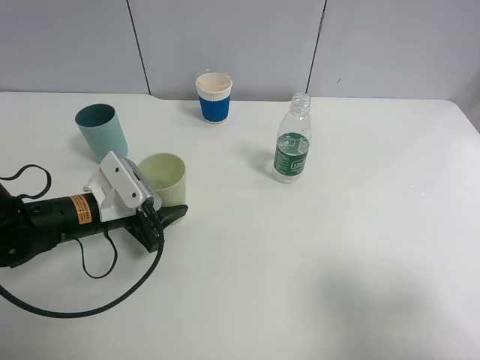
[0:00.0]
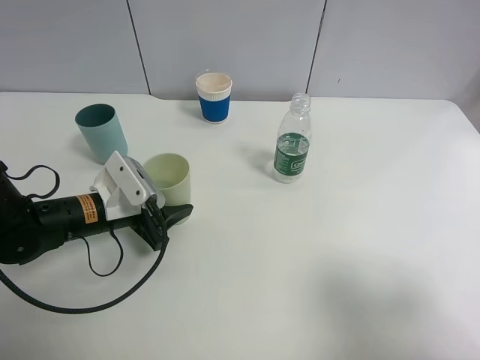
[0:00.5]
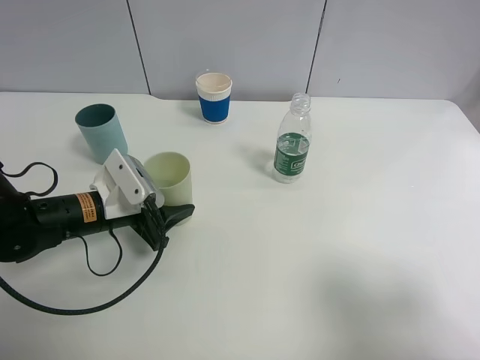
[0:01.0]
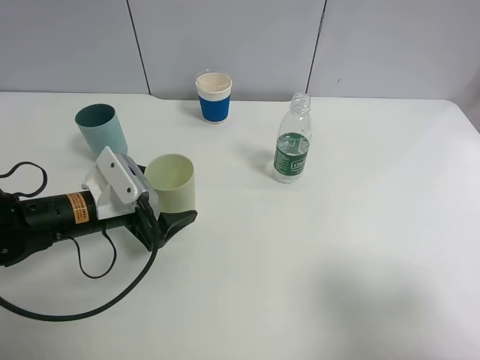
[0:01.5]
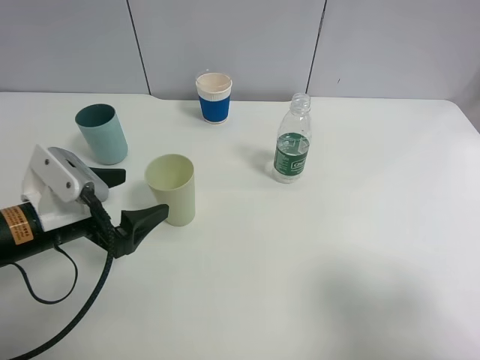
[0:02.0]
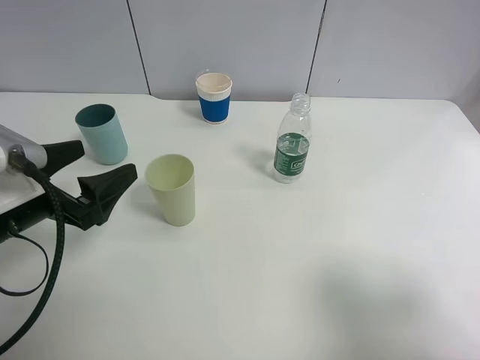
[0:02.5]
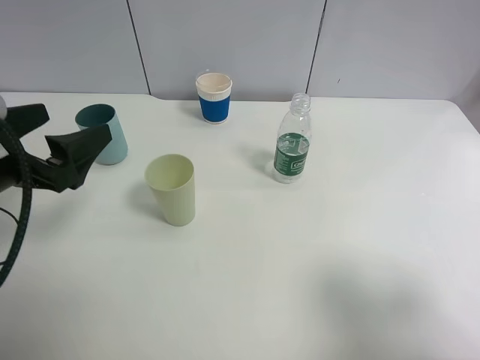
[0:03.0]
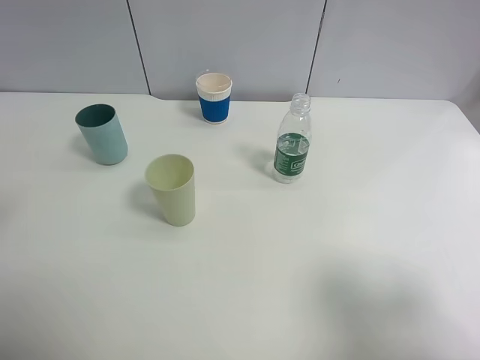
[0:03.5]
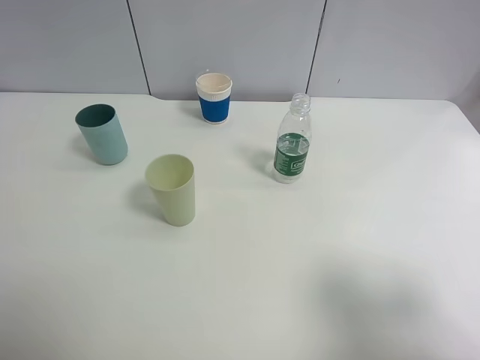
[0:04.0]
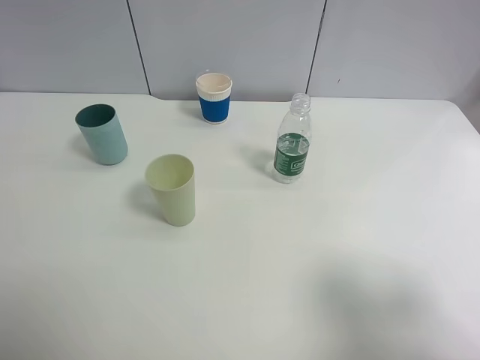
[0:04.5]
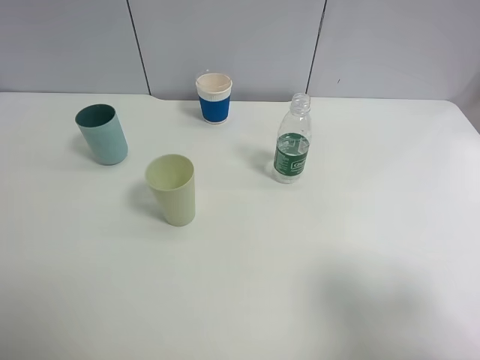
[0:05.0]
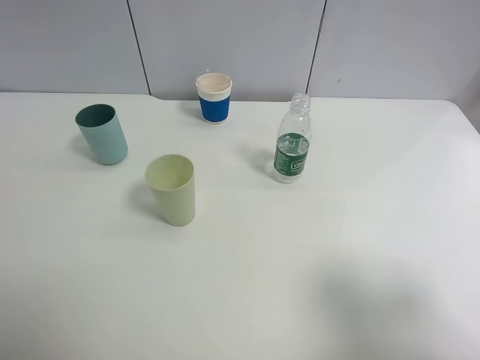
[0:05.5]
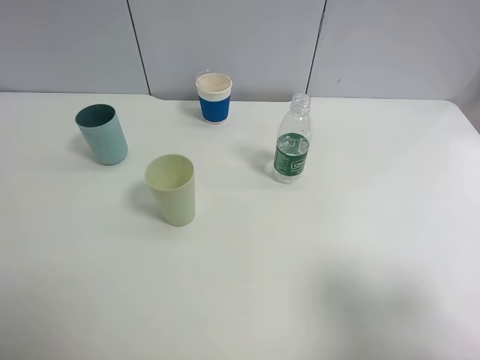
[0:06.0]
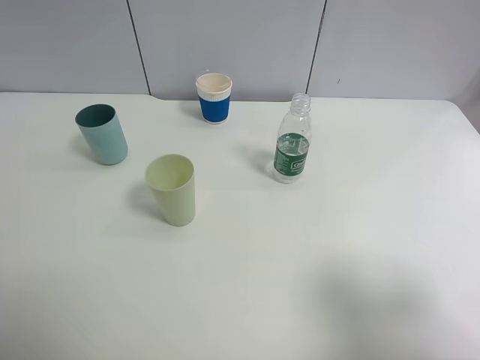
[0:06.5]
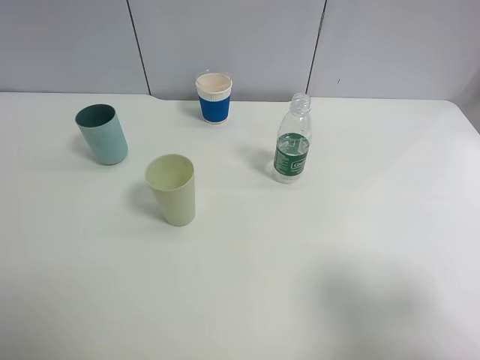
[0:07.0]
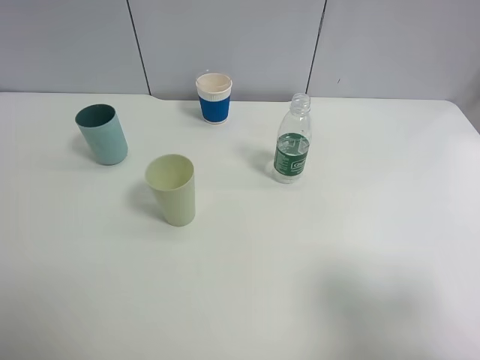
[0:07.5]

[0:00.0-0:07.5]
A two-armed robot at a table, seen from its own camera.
Task of the whole recording: use a clamp to hold the bottle of the drink, pour the beverage into a random cup, then clamp the cup containing the drink and pour the drink into another random cup.
0:00.0 to 0:02.0: The left gripper is displaced backward and upward by about 10 cm, and opens up.
0:02.0 to 0:04.0: The left gripper shifts some 25 cm upward, backward and to the left.
0:05.5 to 0:07.5: The two grippers keep their place.

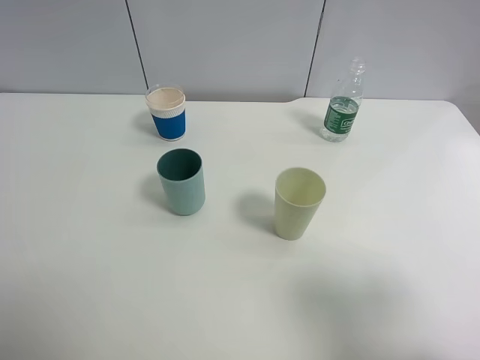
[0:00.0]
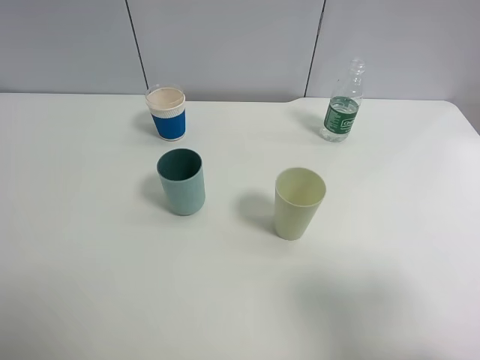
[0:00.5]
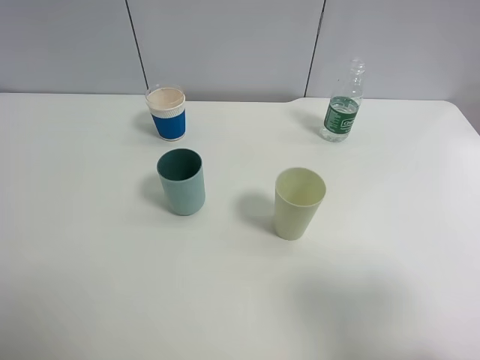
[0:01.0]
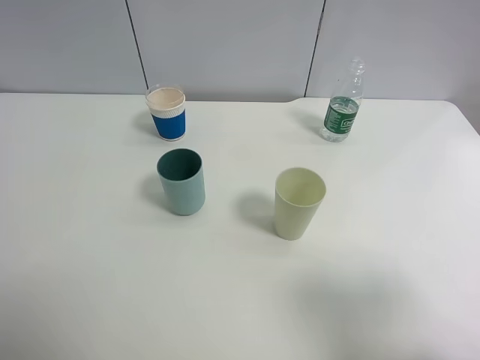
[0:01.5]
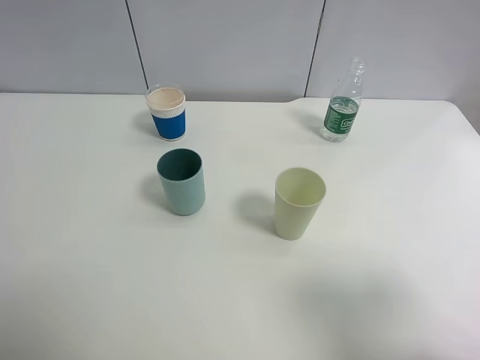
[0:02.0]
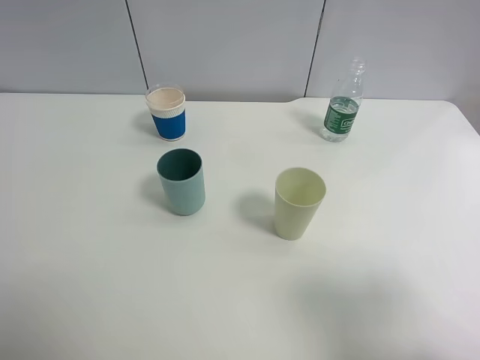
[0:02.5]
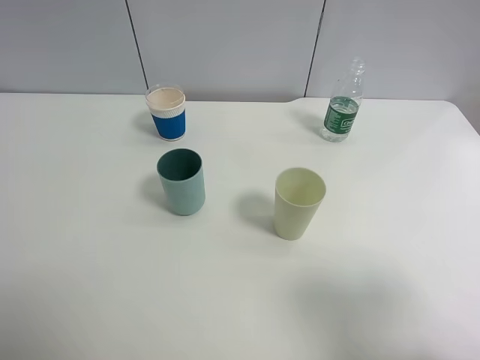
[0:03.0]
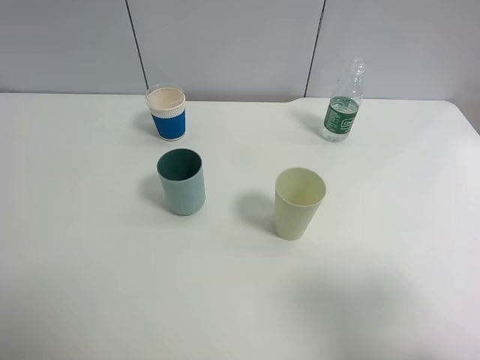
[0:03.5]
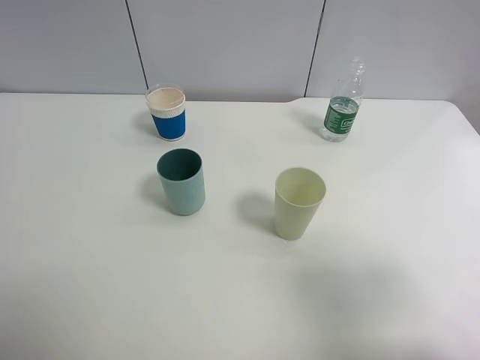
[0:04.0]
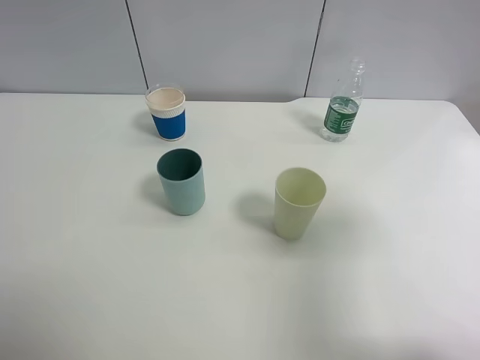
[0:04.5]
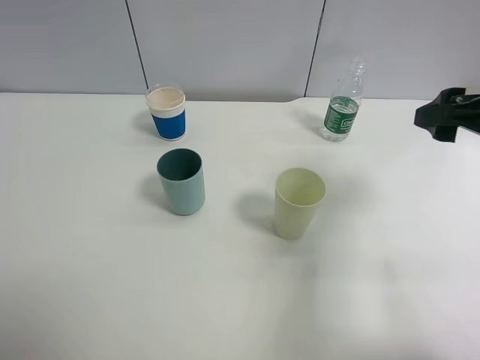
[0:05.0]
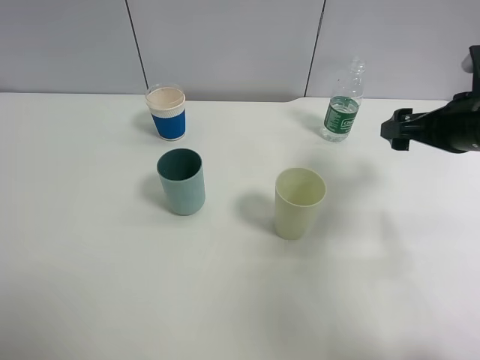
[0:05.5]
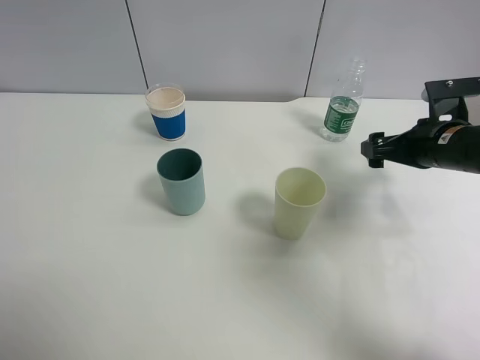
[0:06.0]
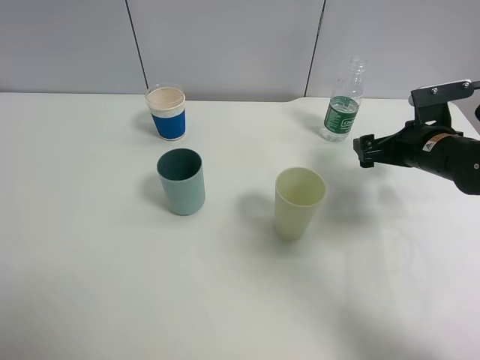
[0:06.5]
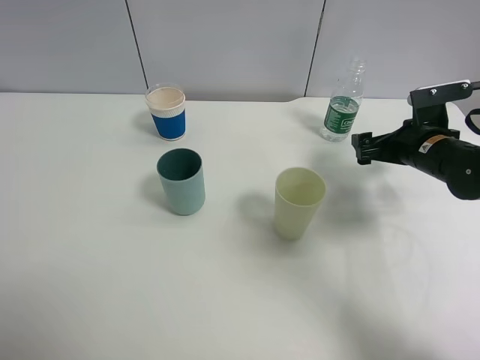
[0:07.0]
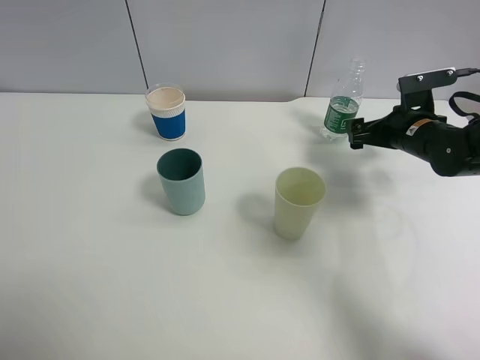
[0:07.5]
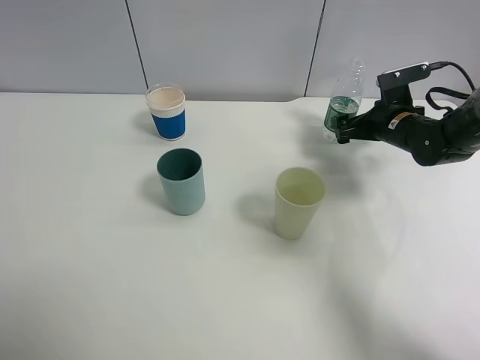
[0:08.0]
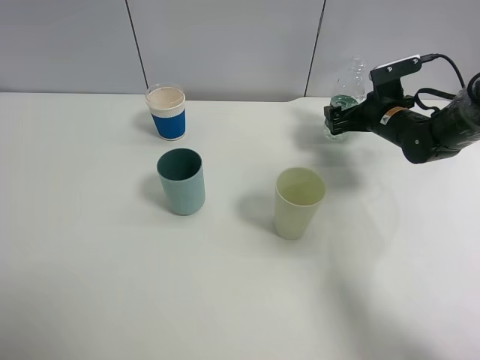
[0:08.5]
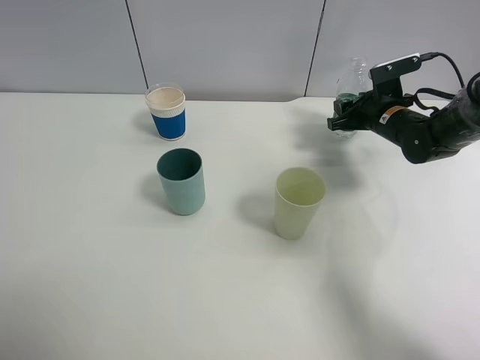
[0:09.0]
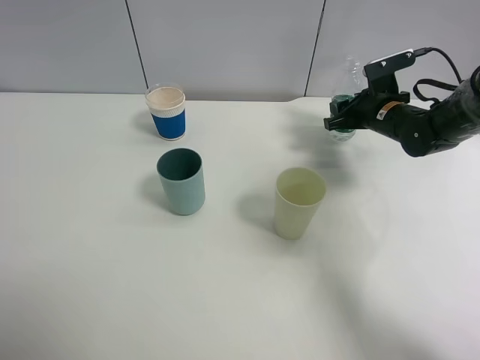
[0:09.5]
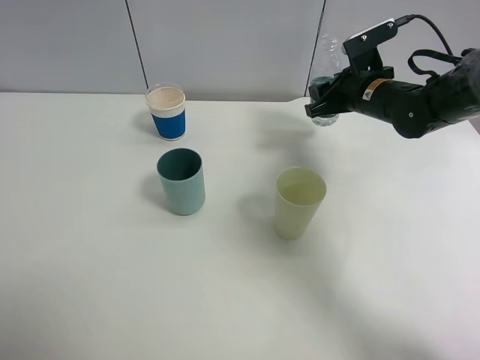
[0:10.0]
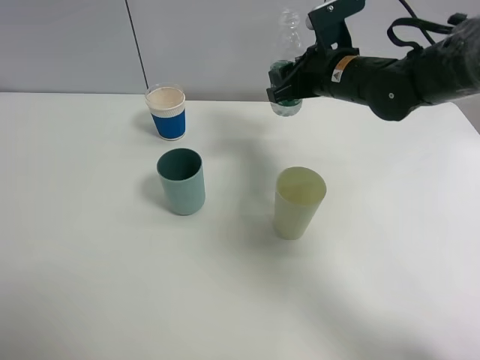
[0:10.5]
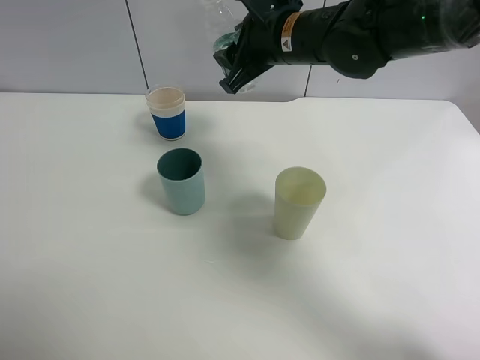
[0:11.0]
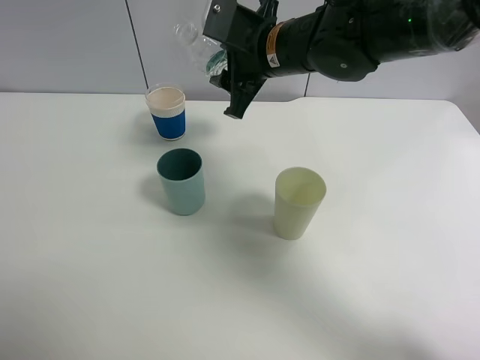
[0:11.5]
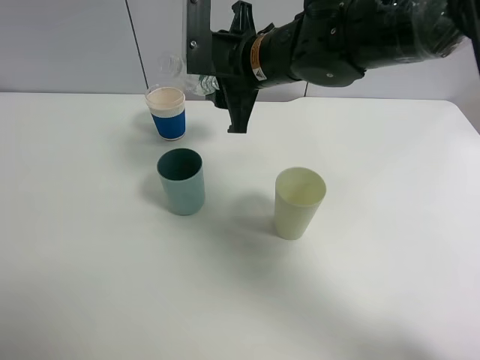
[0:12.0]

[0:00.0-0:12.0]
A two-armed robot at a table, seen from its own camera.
Task of the whole recording: use a clamp to hold the bottle of the drink, pour the beverage into a random cup, then clamp the cup containing the drink and pour the drink into another random cup.
Step, 0:00.0 to 0:09.5: Pick up the water bottle with right gripper.
0:00.0 to 0:02.0: Both grippers stay about where they are.
0:04.0 to 0:06.0: The right gripper goes some 30 cm forward and downward.
0:06.0 to 0:08.0: The right gripper shifts about 10 cm forward.
0:08.0 to 0:10.0: The right gripper shifts some 10 cm to the left and upward, and closes its fingers.
0:10.0 to 0:12.0: The right gripper travels to the left and upward by roughly 20 cm.

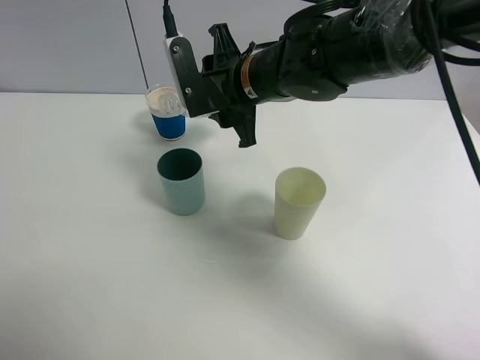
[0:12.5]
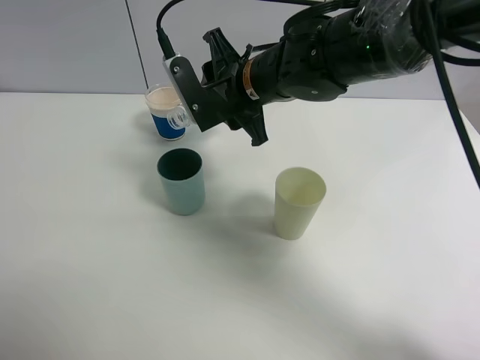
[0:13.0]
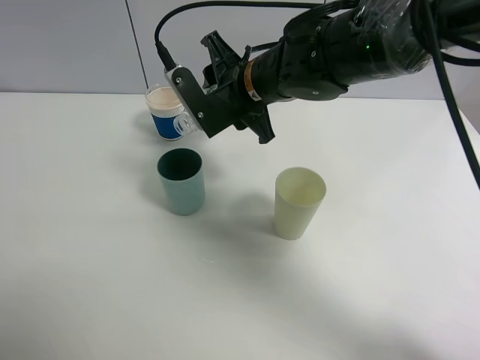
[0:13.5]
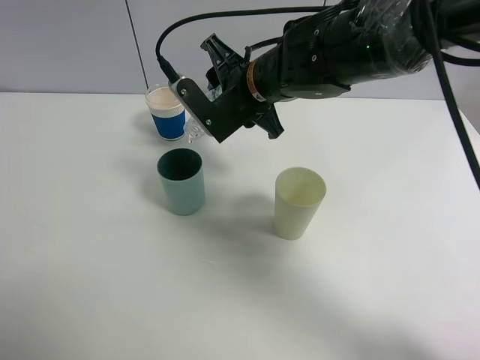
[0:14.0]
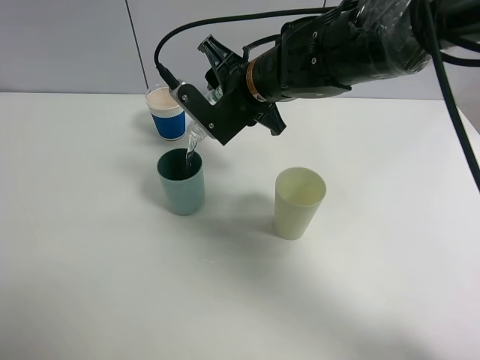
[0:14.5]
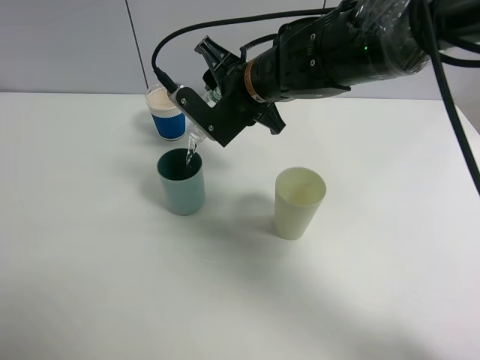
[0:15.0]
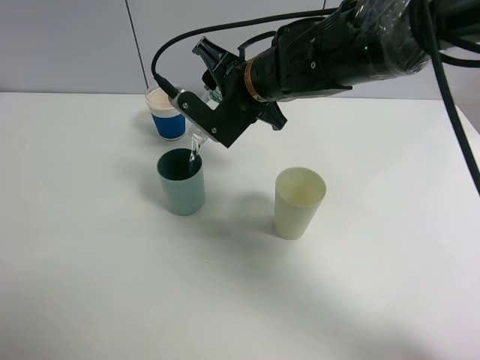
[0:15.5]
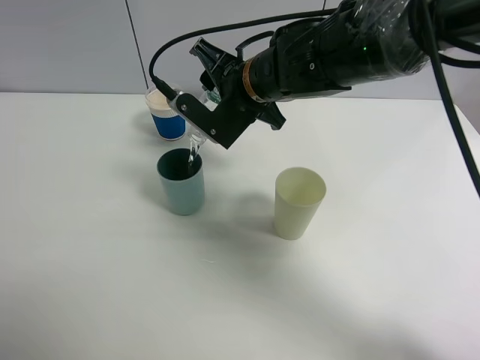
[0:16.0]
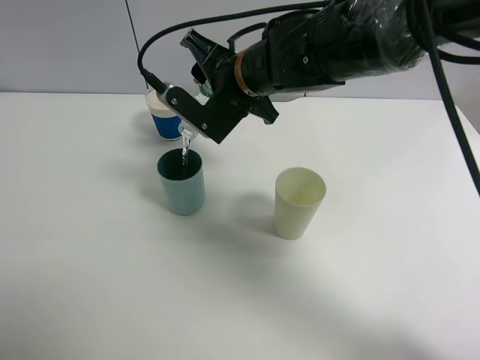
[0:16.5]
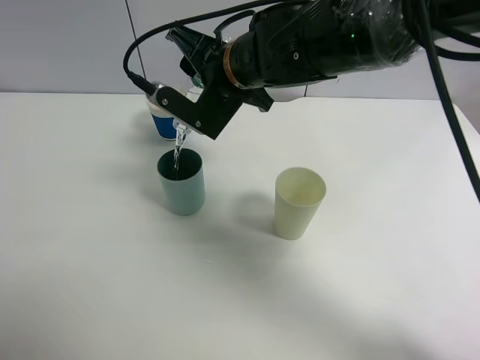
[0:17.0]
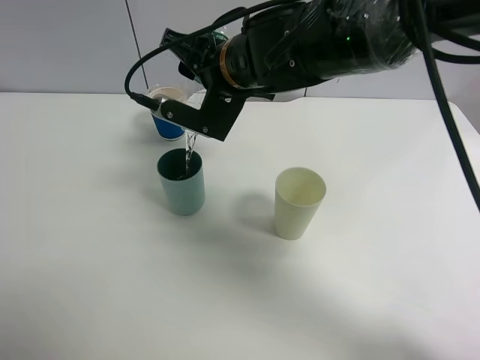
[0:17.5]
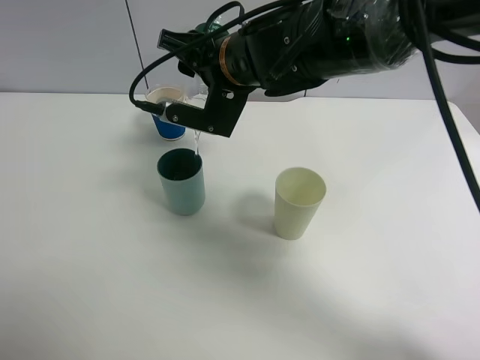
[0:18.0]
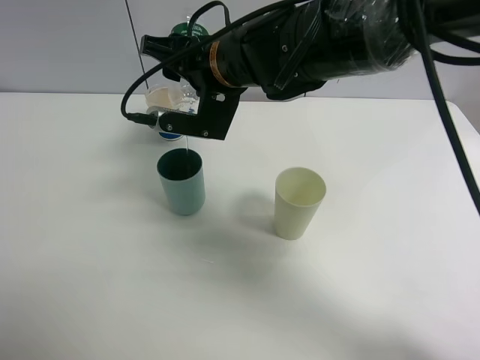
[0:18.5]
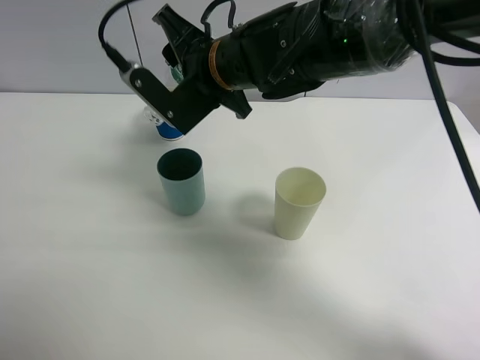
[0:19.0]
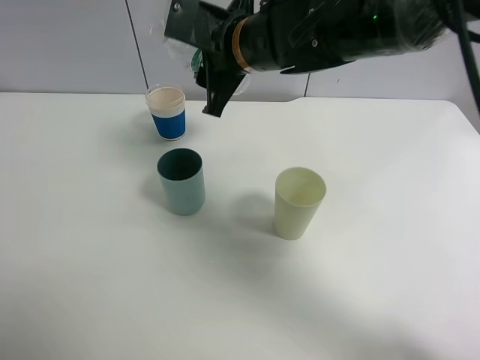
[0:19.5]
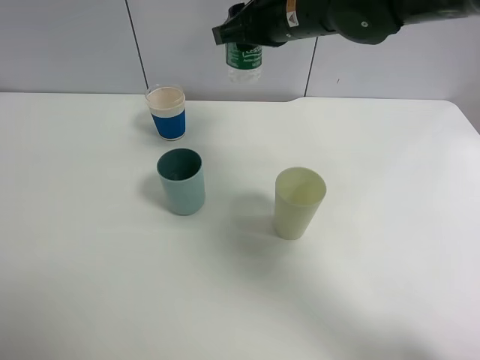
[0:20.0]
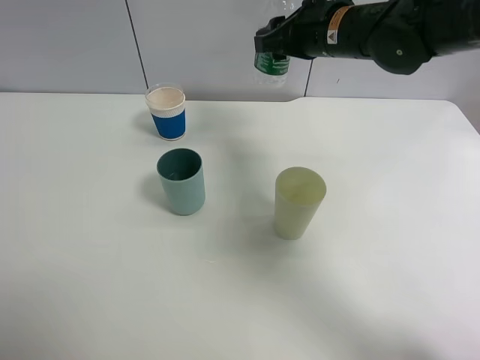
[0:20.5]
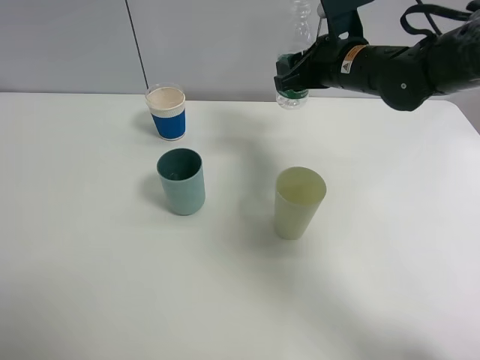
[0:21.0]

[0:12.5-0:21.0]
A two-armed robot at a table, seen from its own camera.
Task of the whole recording: use a clamp to hold the bottle of the drink, pour the beverage into a random cup, then clamp the cup containing the drink and pour the drink into another random cup.
Step, 0:12.5 to 0:19.0: Pour water into the blue plastic cup with right gripper.
0:14.5 to 0:16.5: The grippers move only a little.
0:19.0 to 0:21.0: The right gripper is displaced to the right by approximately 15 cm.
